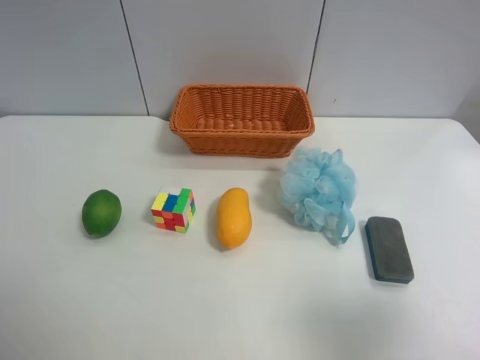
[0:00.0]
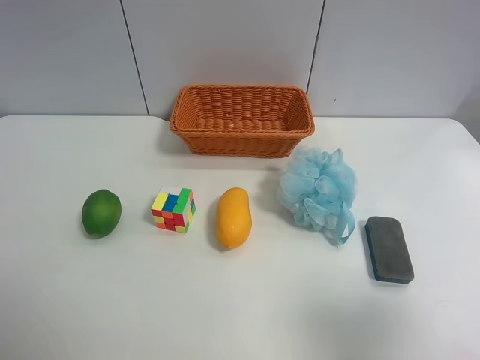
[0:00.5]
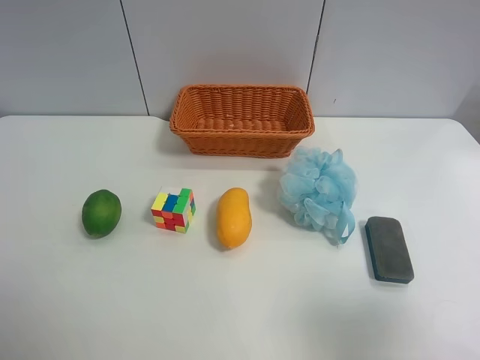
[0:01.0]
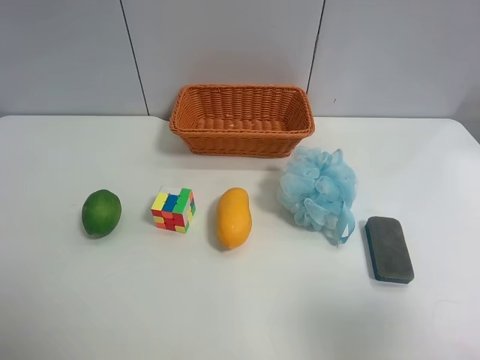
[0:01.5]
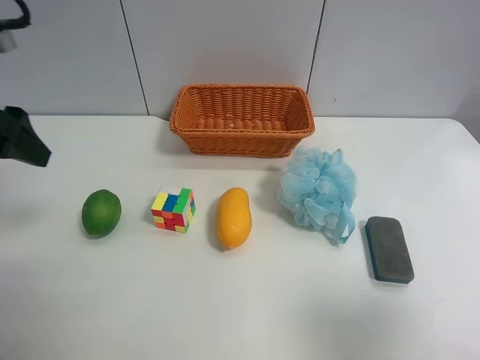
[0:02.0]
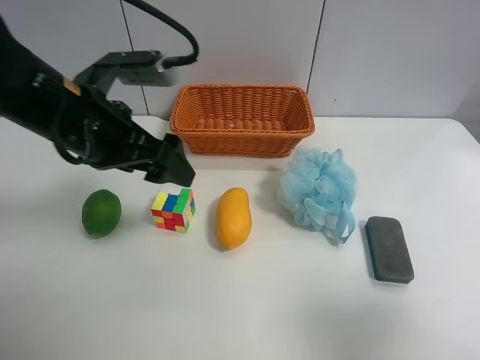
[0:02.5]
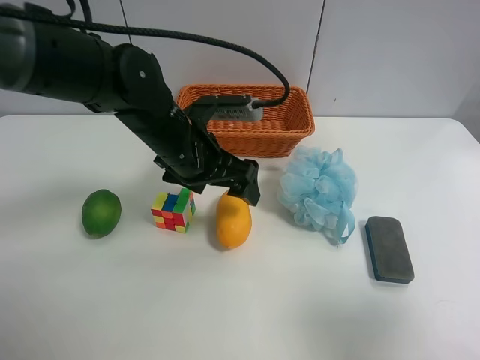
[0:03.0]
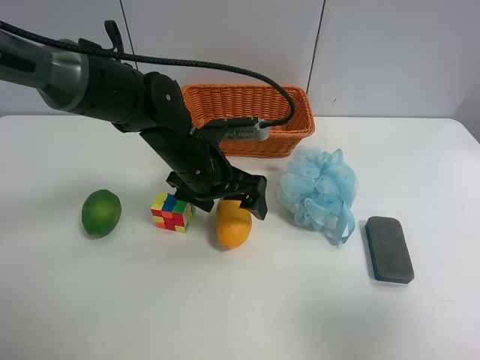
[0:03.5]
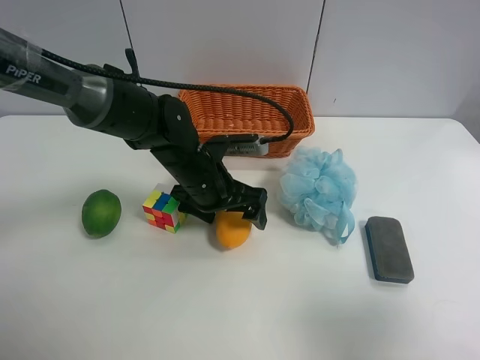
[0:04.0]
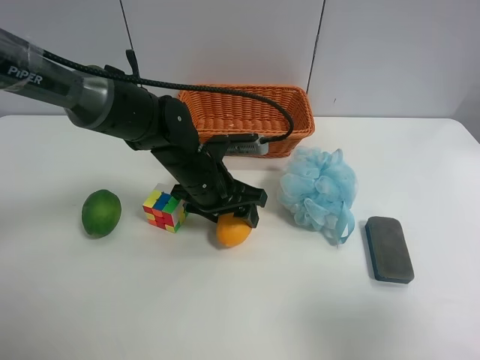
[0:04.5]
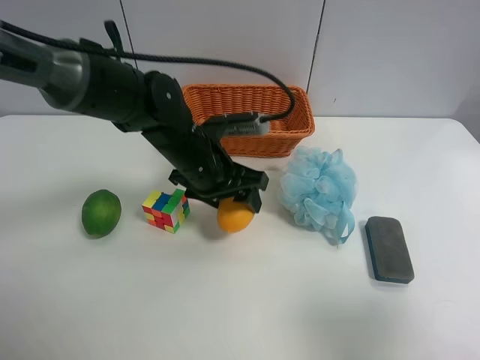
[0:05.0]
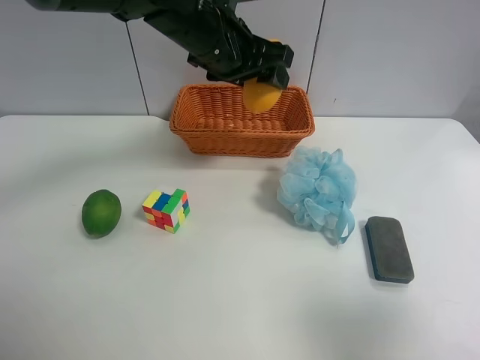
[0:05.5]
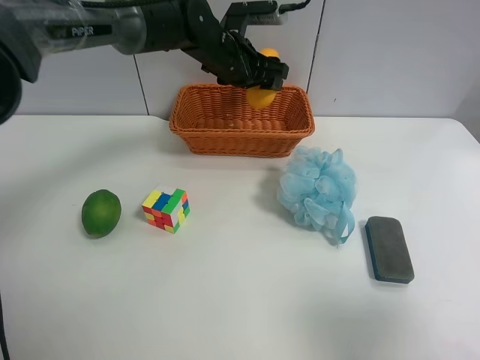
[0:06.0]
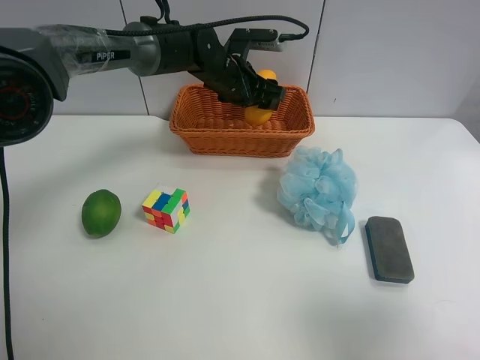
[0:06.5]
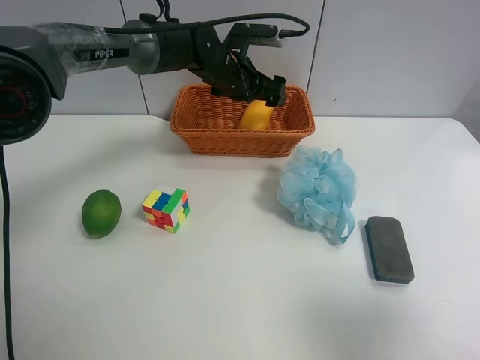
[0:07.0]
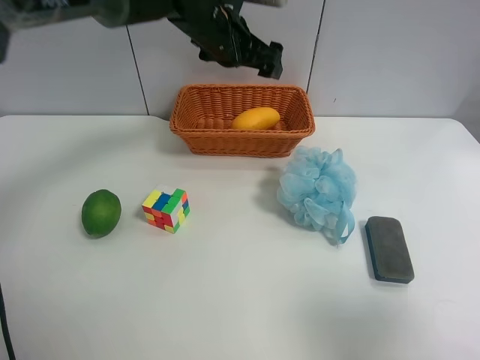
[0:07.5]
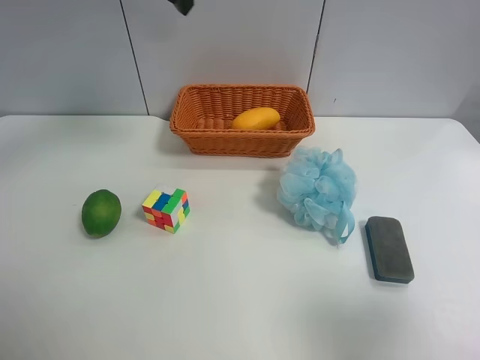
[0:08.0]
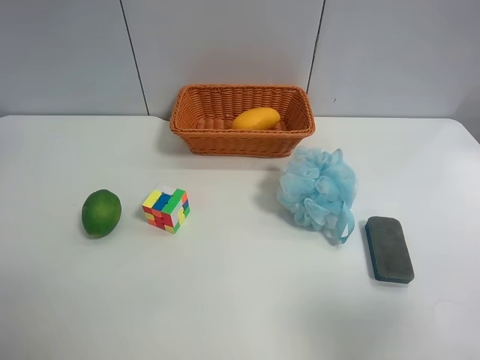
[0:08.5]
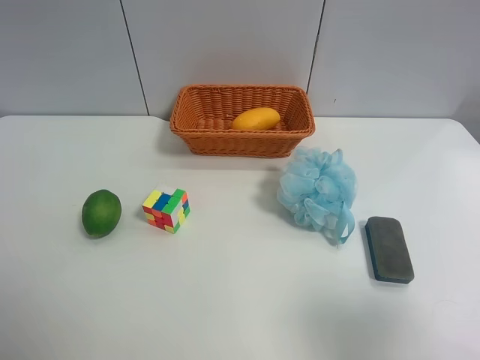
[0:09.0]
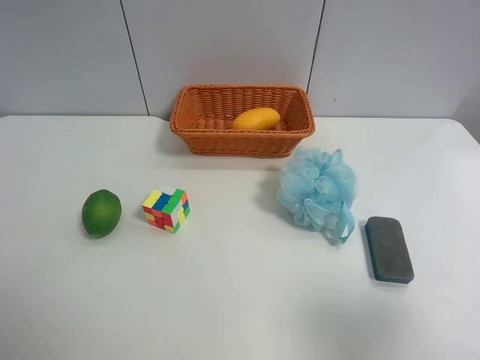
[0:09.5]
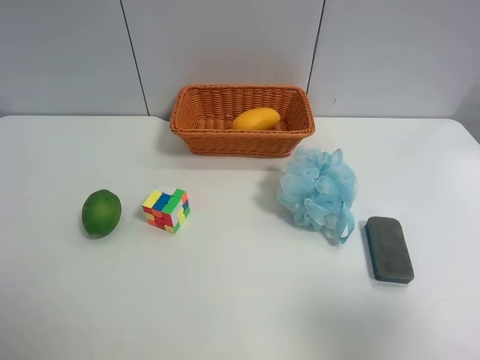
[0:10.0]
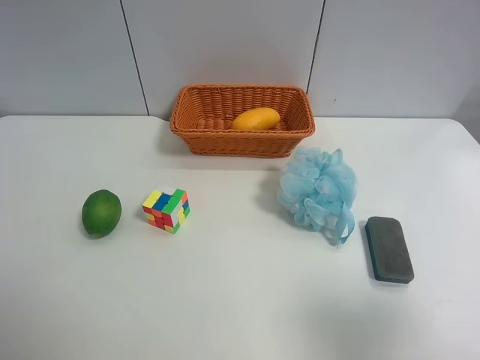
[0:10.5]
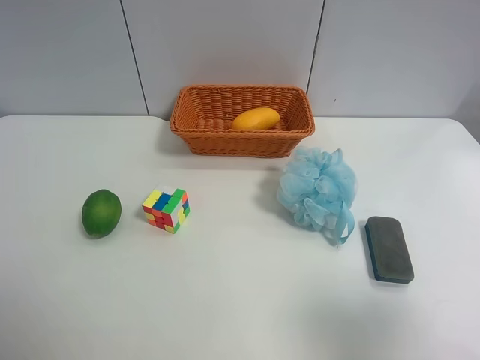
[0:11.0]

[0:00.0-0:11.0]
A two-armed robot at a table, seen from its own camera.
Task of the whole recording: Randomly grab green lemon or mangoes from the table and put them in a basket.
Step, 0:00.0 to 0:04.0: Grasp the mango with the left gripper.
Step, 0:04.5 to 0:07.0: Place the mango into the basket with the left gripper.
0:00.0 to 0:02.0: The left gripper goes about 20 cm forward.
0:02.0 to 0:03.5: The left gripper goes roughly 30 cm to the right and downward.
0:03.5 to 0:05.5: The left gripper heads upward and forward, covering about 15 cm, and closes up.
0:05.5 to 0:07.5: The left gripper heads forward, covering about 10 cm, and opens up.
0:07.5 to 0:09.0: The left gripper travels backward, to the left and upward by roughly 50 cm.
